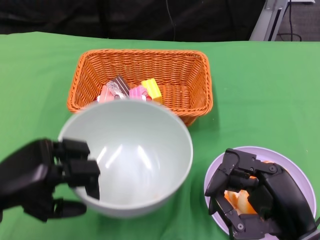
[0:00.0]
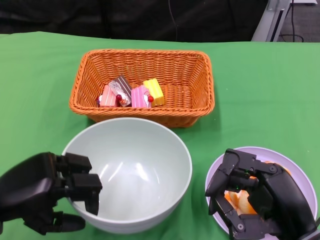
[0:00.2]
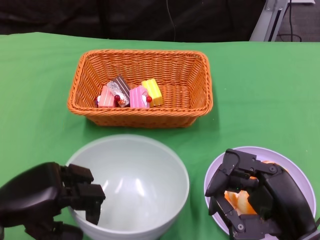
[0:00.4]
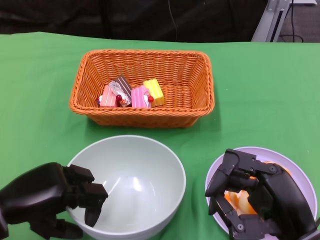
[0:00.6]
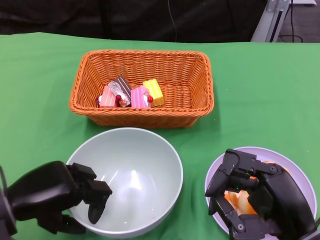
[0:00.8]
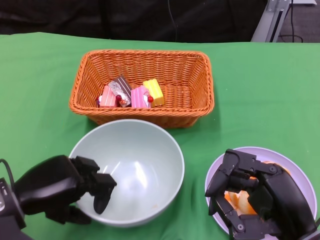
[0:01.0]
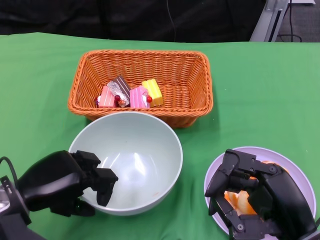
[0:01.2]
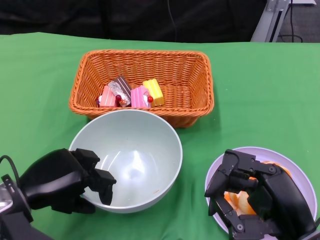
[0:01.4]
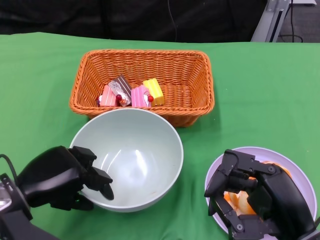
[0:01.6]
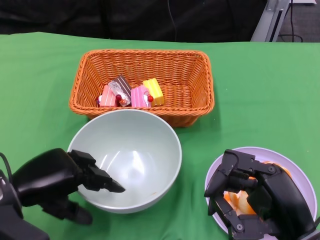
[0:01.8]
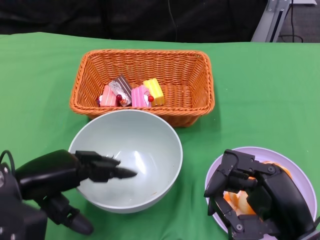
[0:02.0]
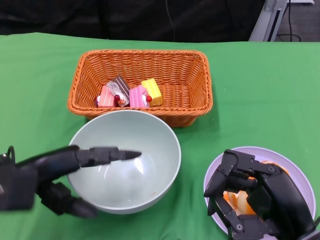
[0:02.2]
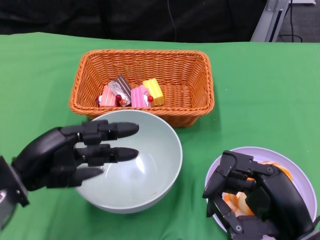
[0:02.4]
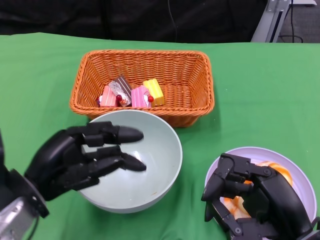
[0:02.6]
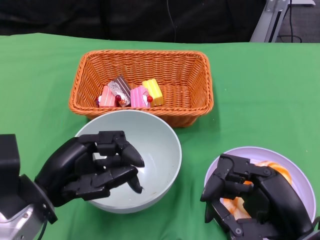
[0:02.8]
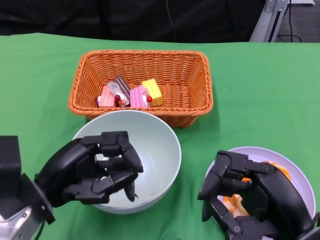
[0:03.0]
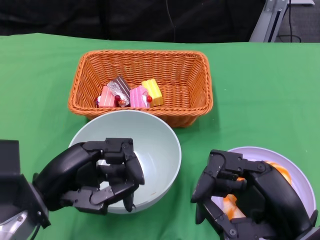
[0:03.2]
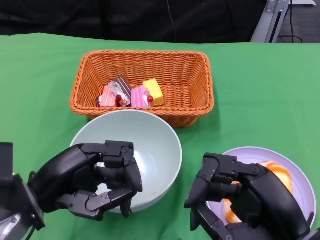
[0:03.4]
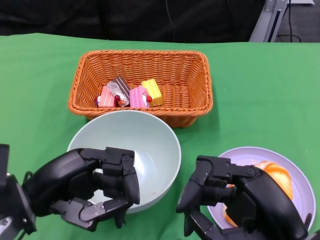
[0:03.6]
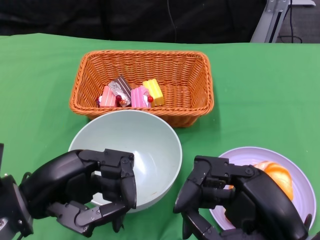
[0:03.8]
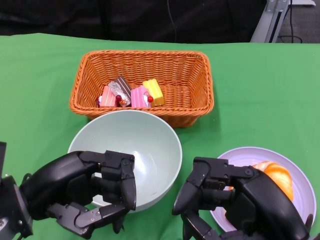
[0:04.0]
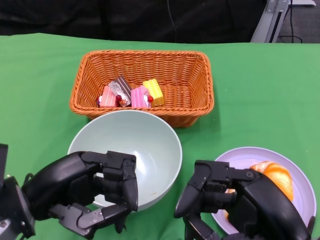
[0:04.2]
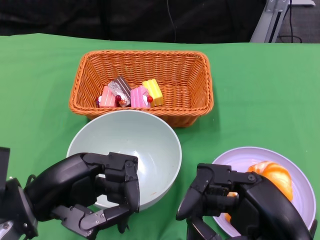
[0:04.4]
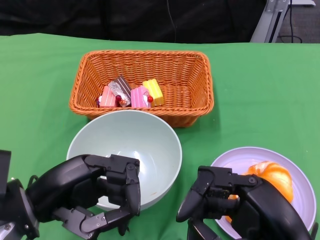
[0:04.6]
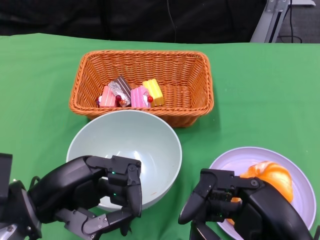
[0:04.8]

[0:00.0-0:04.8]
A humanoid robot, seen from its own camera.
0:00.0 to 0:01.6: The left hand shifts by roughly 5 cm.
0:01.6 to 0:03.2: The left hand changes place by about 5 cm.

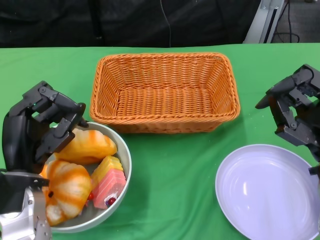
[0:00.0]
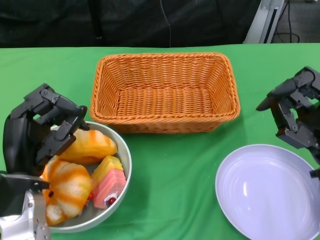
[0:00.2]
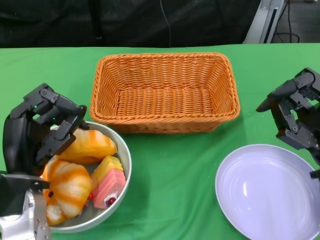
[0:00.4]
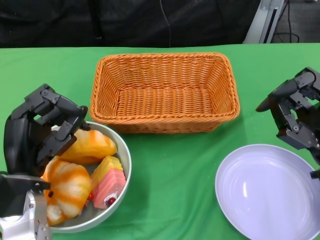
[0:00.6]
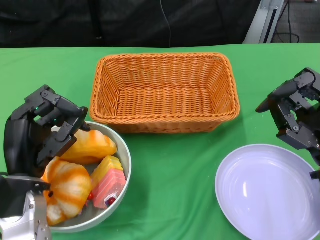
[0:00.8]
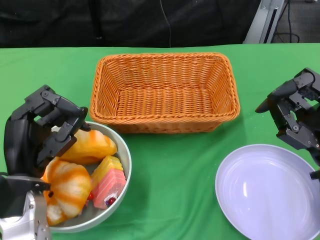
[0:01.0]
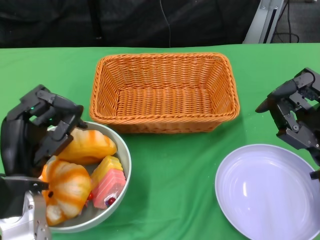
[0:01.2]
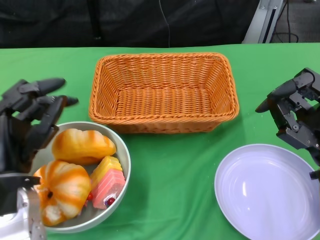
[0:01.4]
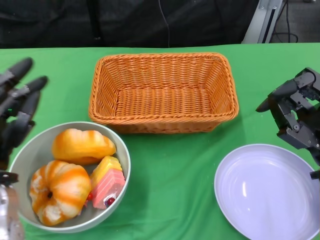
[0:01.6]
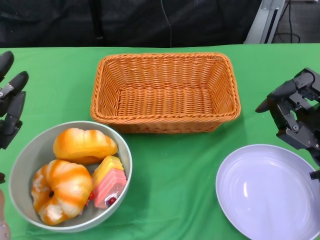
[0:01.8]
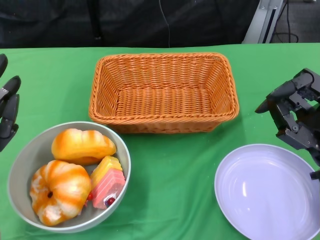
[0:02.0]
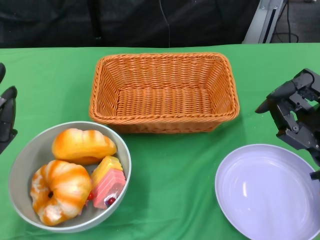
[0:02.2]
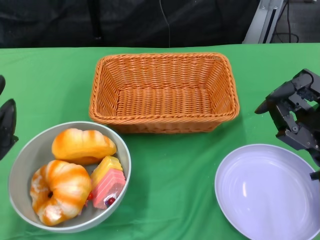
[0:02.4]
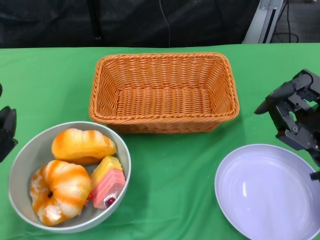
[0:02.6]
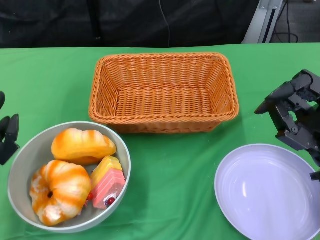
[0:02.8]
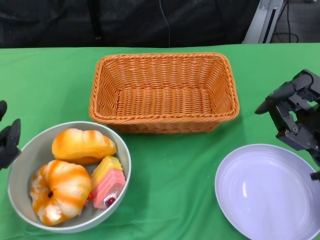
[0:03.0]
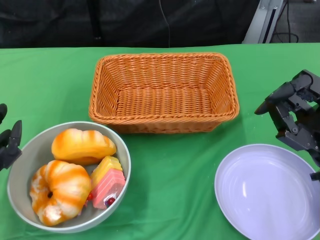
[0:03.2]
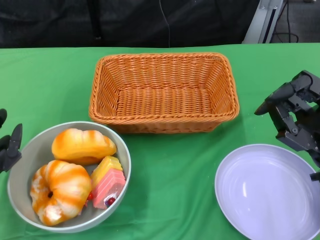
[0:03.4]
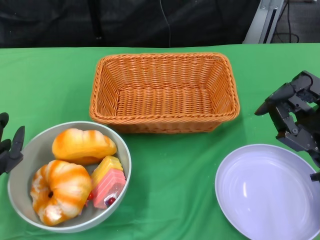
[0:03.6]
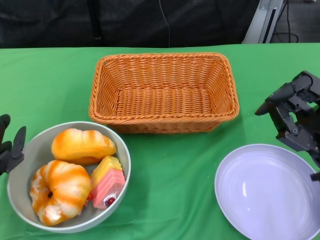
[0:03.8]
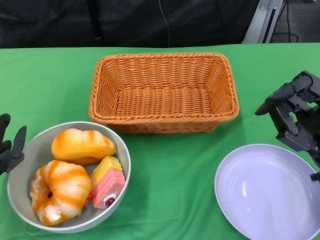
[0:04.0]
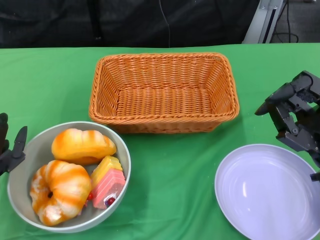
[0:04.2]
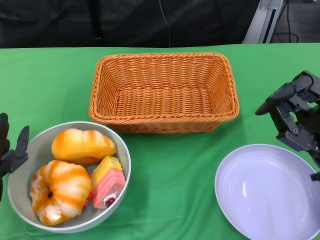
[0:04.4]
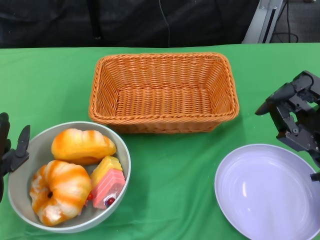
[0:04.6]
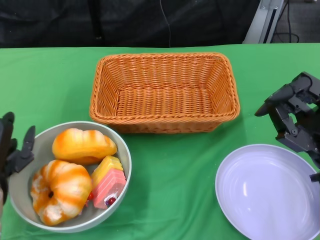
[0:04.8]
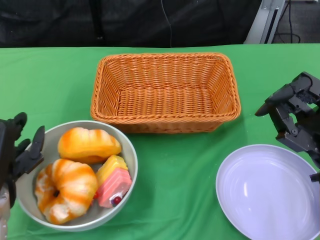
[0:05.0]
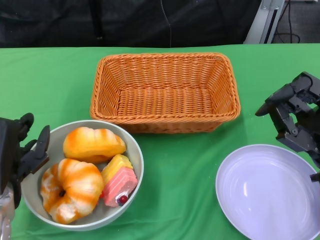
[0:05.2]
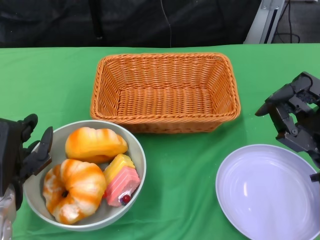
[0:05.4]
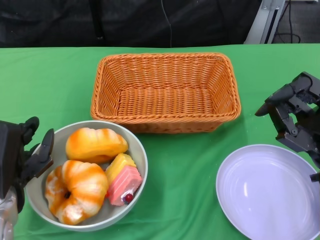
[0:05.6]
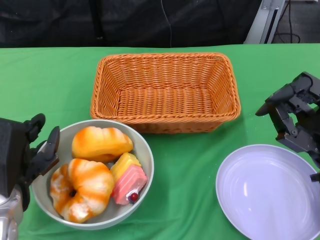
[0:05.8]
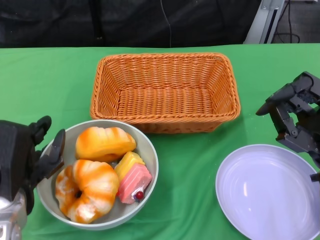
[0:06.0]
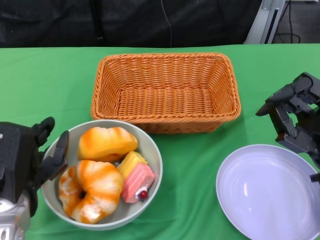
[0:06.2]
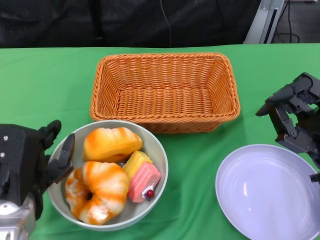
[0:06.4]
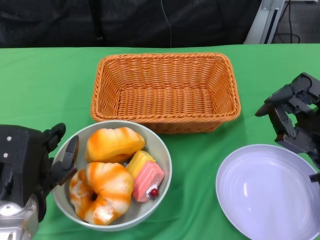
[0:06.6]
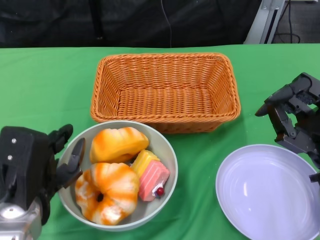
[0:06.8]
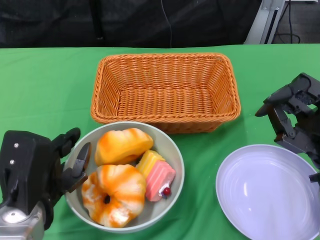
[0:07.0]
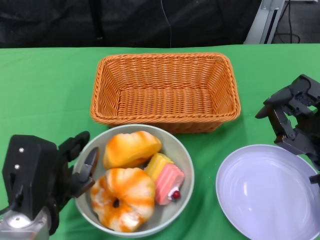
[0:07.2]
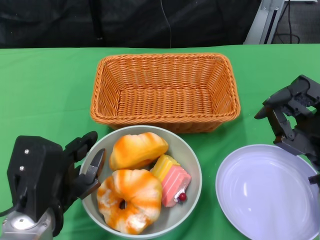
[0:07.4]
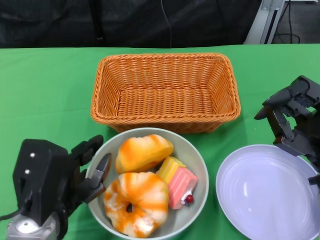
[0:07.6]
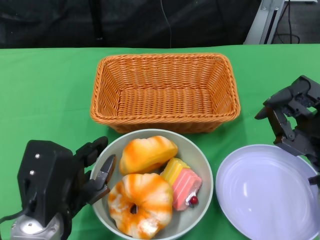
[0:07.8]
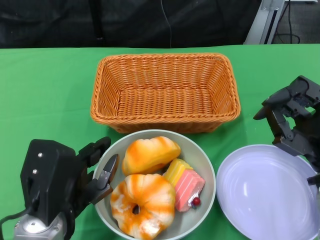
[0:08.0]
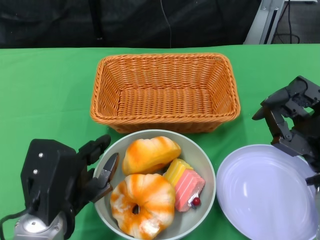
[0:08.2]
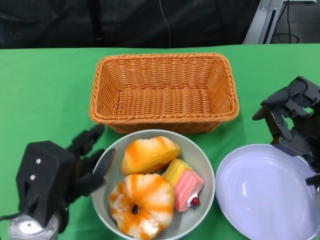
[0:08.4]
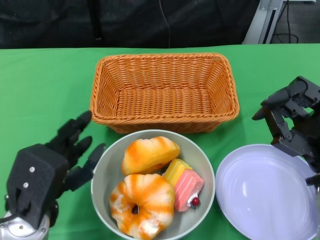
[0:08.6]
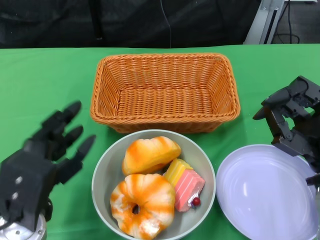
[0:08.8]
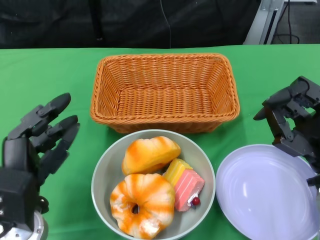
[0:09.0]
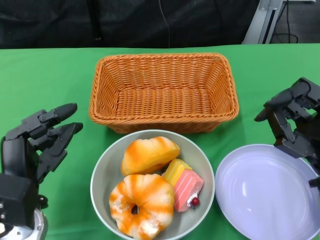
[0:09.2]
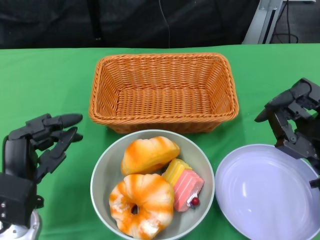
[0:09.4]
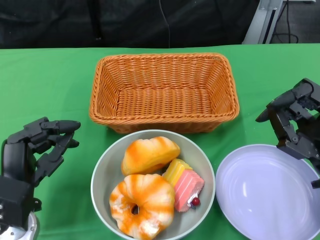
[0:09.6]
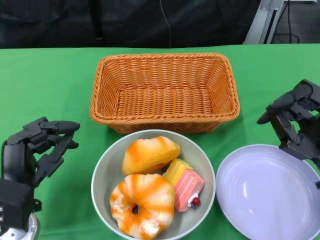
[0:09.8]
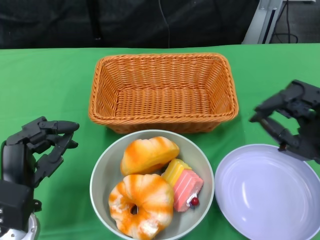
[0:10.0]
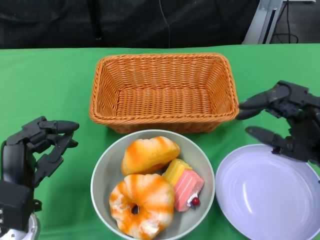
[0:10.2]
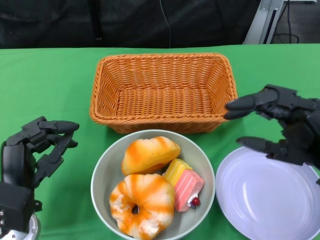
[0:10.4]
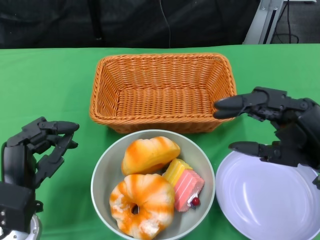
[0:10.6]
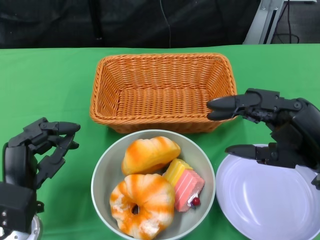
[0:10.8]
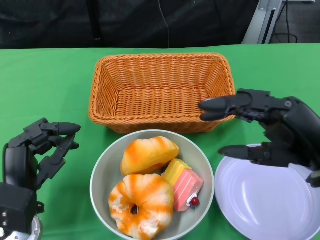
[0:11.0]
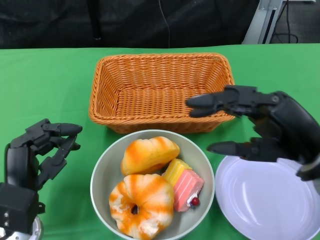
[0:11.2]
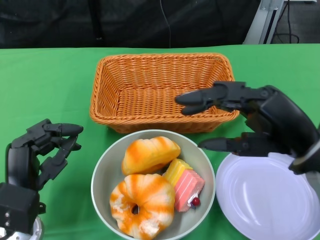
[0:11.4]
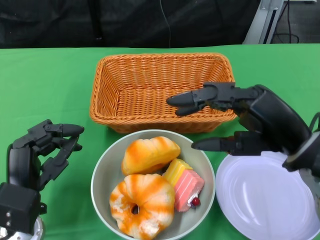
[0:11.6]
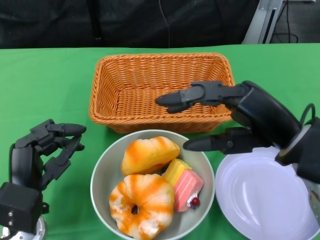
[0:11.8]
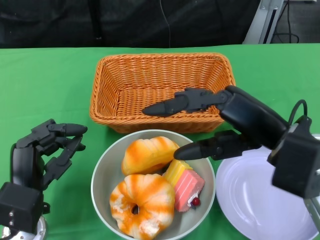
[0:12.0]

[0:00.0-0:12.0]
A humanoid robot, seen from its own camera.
Step, 0:00.0 to 0:09.0: Push the bowl to the center of the table using the left gripper.
0:03.0 to 0:04.4: The hands stay close to where they were, moving slightly.
0:06.0 to 0:07.6: The left hand ends up some 5 cm from where it was.
0:10.4 to 0:12.0: The right hand shifts approximately 5 cm to the left.

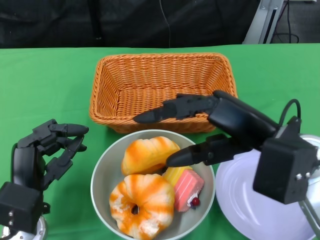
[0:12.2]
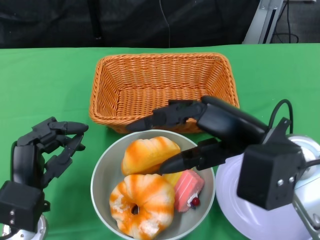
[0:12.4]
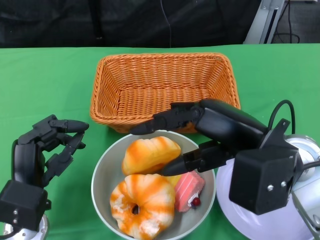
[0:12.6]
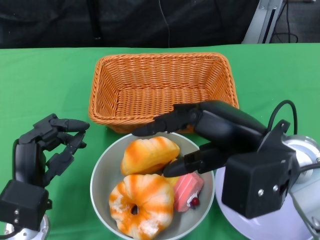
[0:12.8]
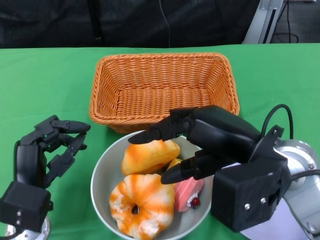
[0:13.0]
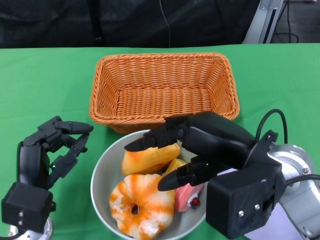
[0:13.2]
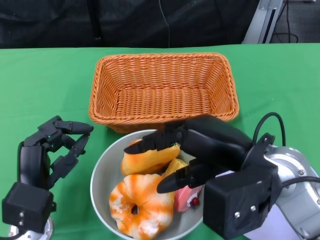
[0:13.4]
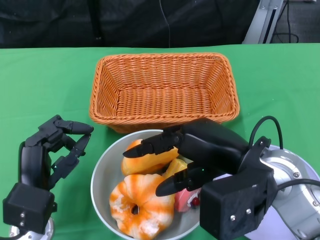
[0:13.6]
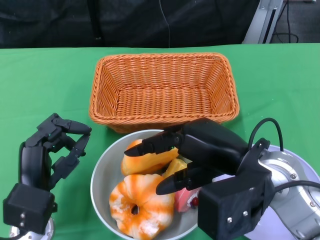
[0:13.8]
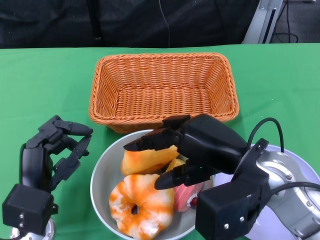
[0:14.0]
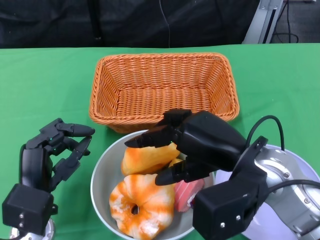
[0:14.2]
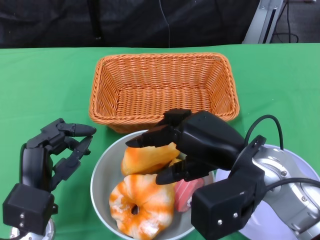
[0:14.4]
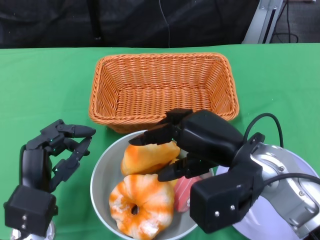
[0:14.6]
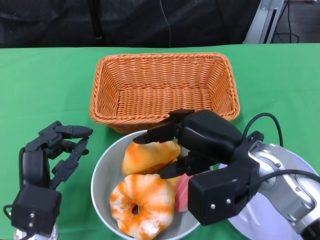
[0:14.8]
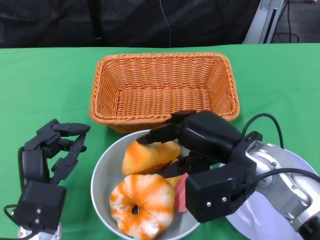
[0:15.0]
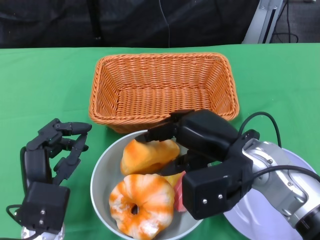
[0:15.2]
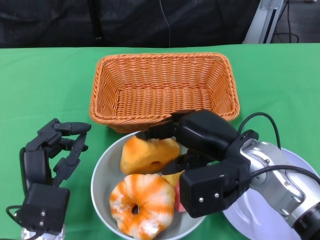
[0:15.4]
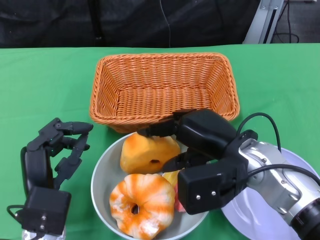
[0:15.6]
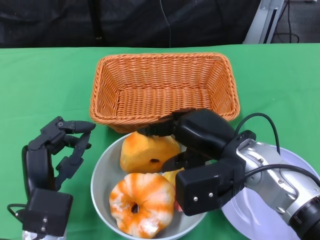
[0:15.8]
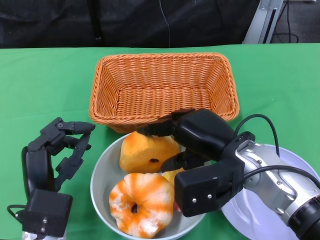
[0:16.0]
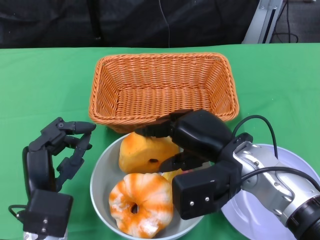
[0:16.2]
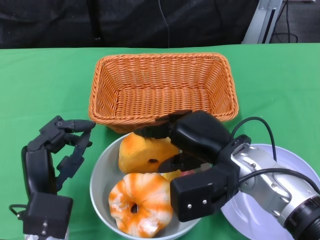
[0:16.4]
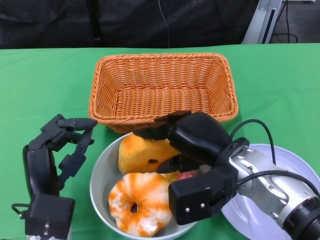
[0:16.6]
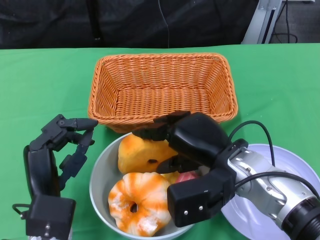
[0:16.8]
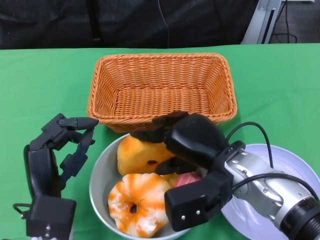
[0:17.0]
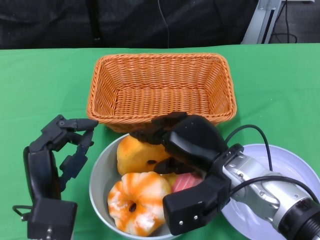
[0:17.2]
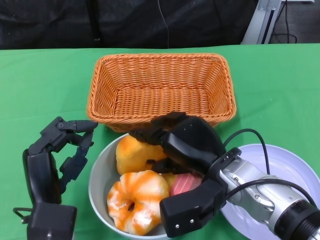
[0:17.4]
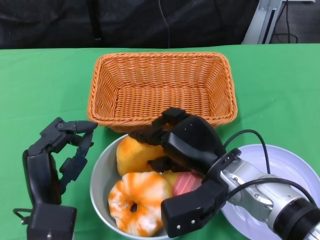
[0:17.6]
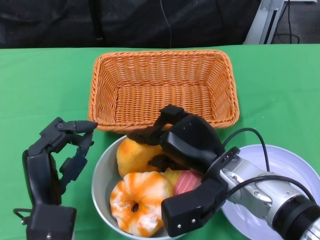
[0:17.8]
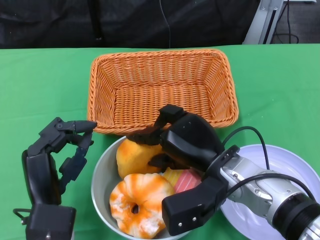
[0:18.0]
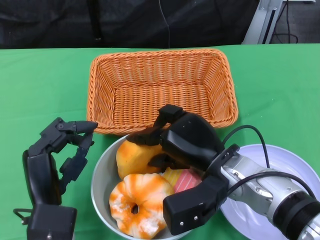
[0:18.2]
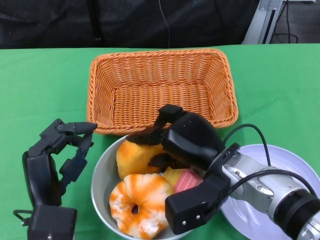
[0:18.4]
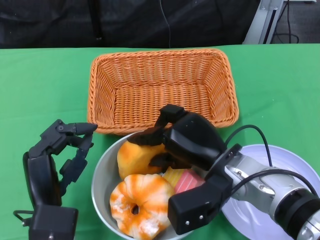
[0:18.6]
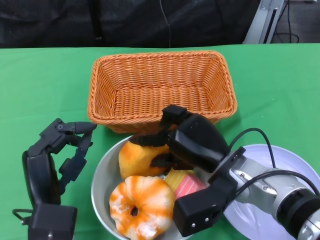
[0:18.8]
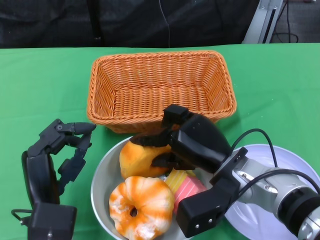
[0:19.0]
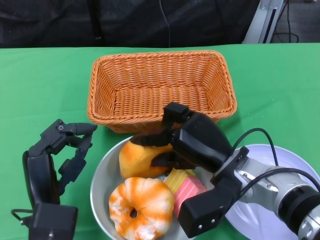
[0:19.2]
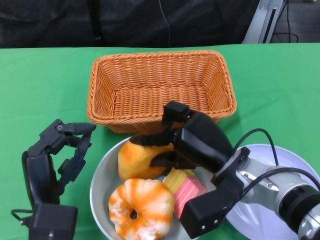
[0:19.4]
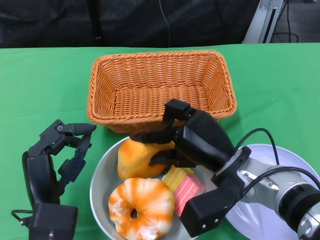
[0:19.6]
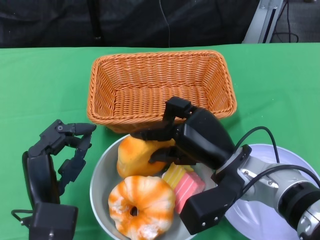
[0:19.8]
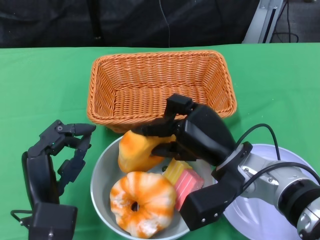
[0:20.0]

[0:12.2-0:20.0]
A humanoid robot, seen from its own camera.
0:13.8 to 0:15.4: The right hand ends up roughly 5 cm from where it was.
0:16.8 to 0:18.4: The hands make only small movements.
